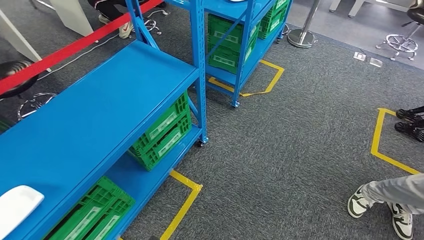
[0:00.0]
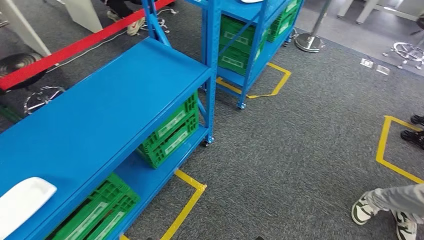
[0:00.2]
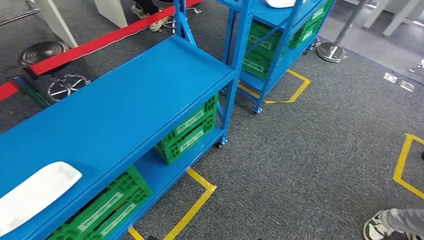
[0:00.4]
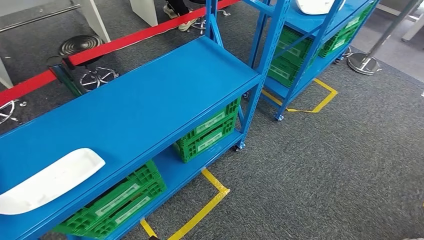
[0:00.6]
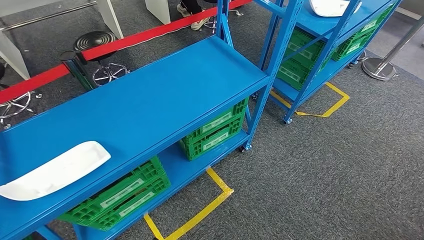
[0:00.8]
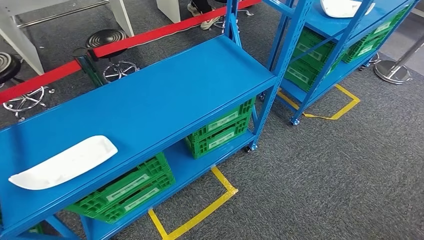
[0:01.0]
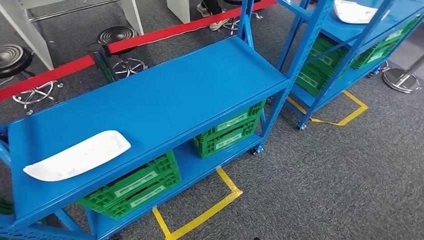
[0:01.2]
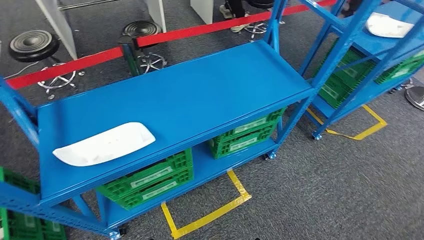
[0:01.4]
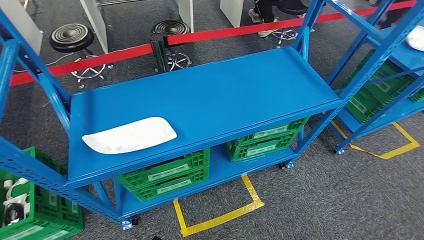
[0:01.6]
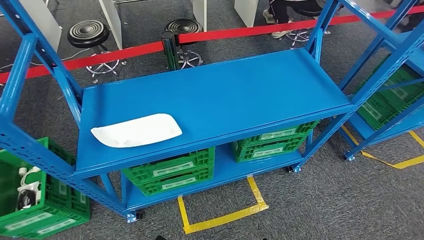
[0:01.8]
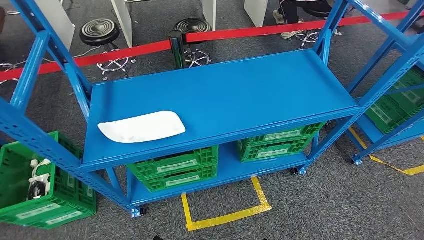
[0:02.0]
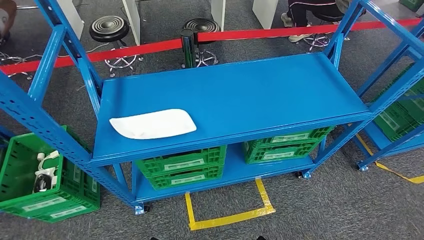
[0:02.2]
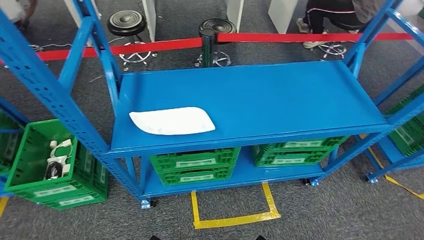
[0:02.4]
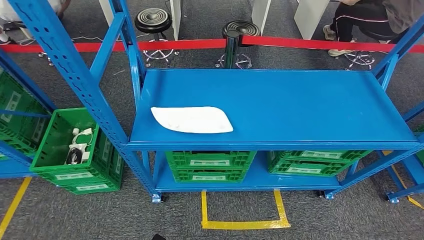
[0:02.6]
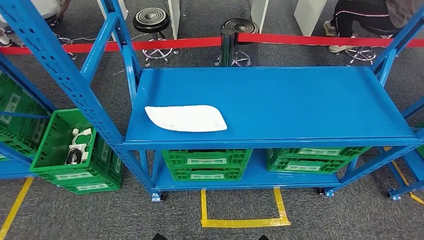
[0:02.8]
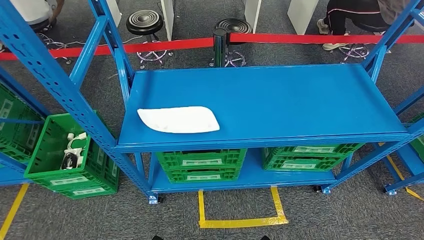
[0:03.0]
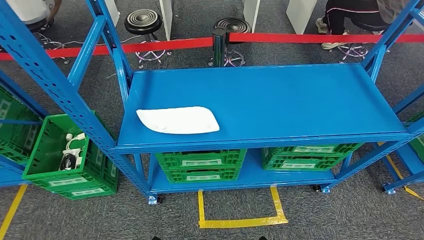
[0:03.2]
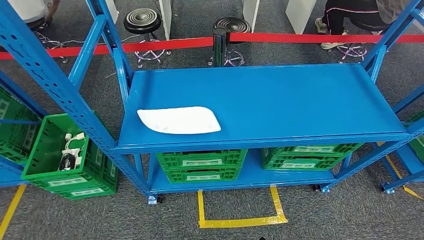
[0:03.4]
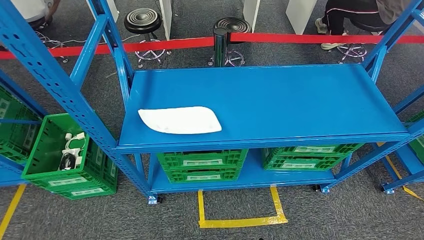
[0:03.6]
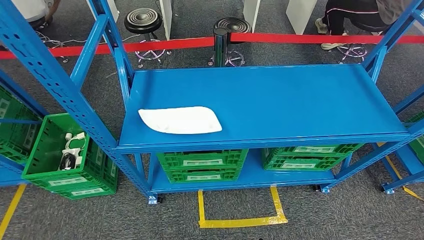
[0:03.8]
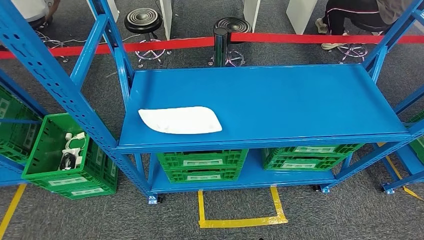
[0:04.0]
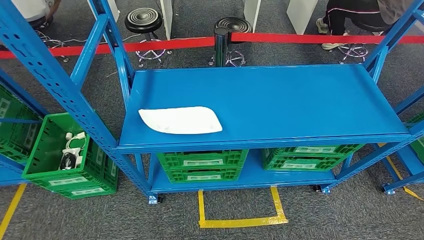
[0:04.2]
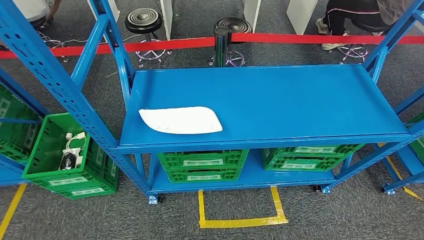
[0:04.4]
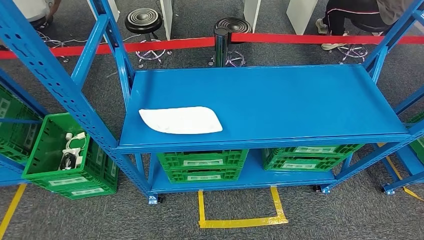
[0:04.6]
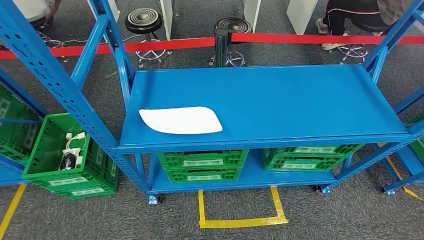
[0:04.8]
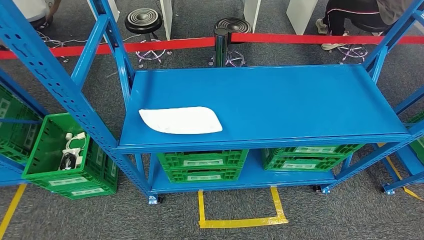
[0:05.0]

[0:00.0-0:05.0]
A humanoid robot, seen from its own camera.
Step, 0:00.0 to 0:05.0: Move to the initial position of the workbench.
0:03.4 to 0:05.0: The two hands go about 5 cm backward.
